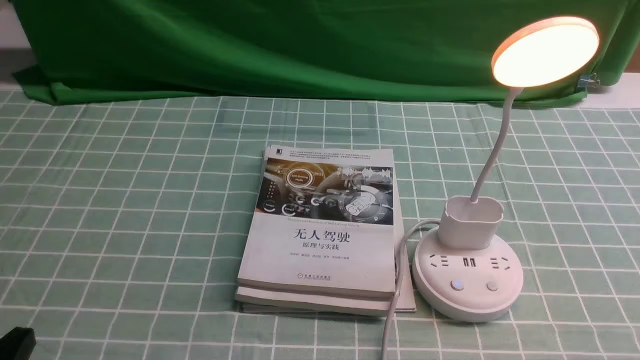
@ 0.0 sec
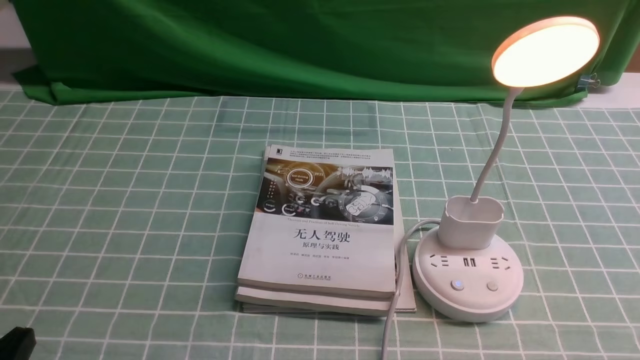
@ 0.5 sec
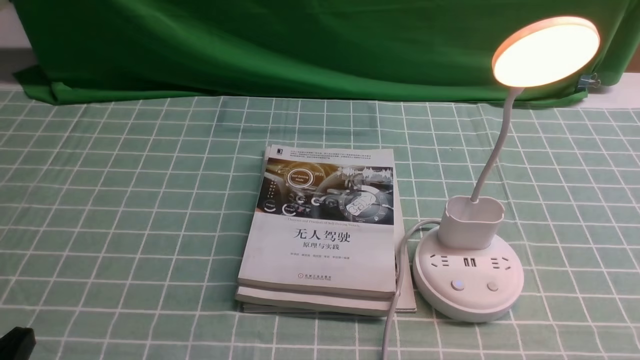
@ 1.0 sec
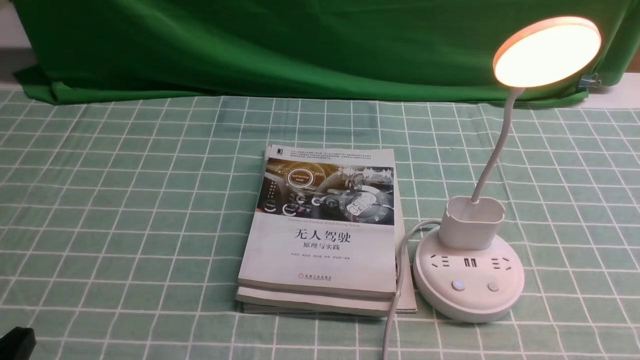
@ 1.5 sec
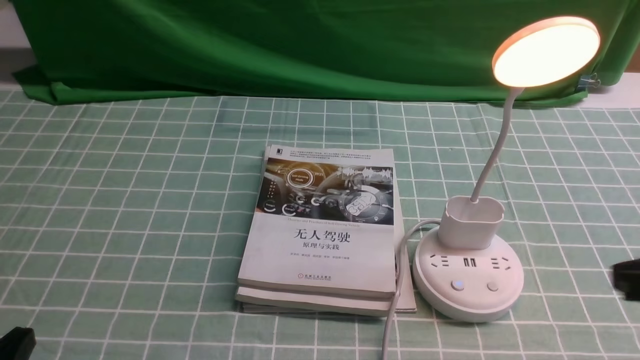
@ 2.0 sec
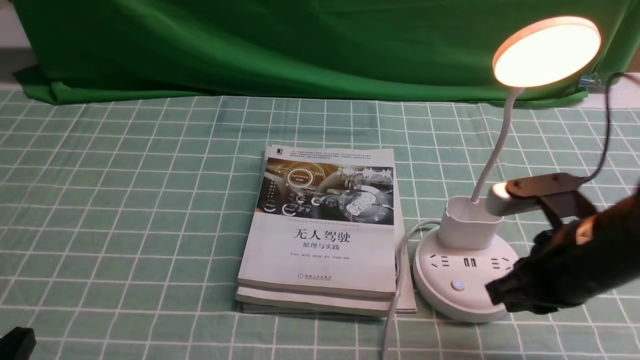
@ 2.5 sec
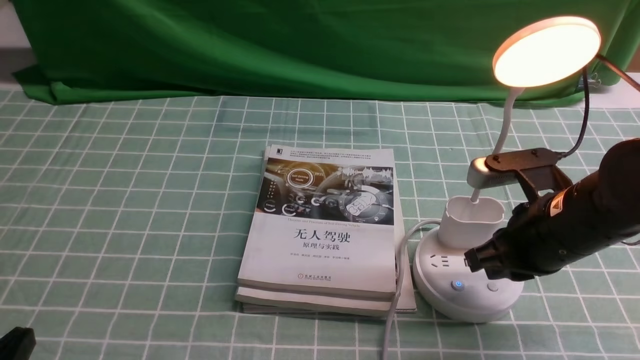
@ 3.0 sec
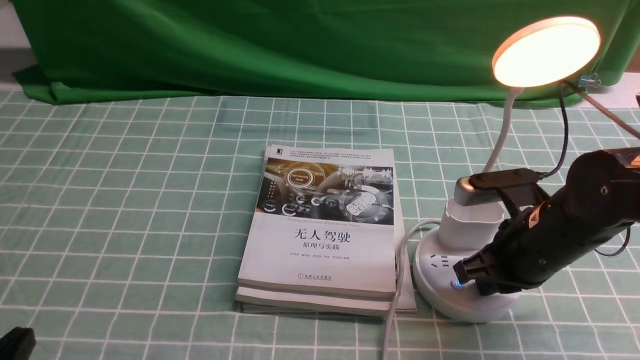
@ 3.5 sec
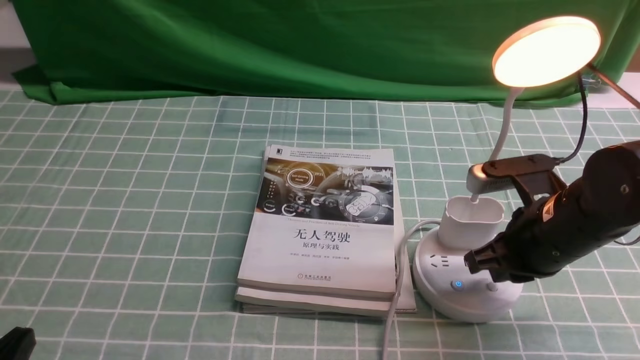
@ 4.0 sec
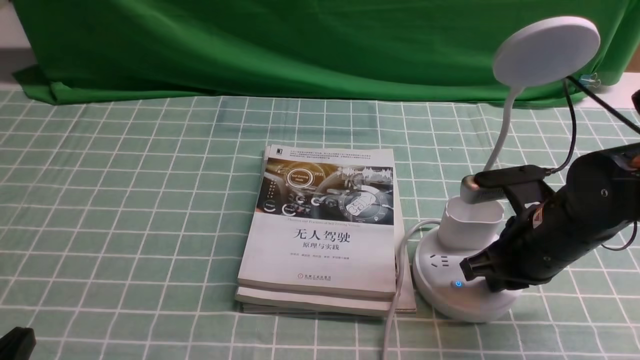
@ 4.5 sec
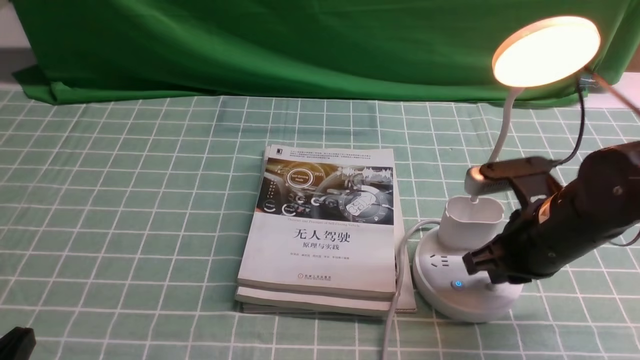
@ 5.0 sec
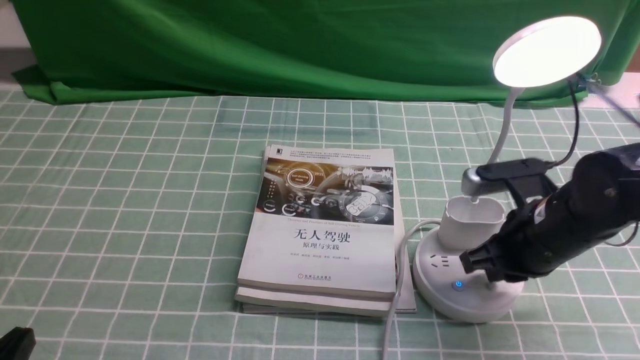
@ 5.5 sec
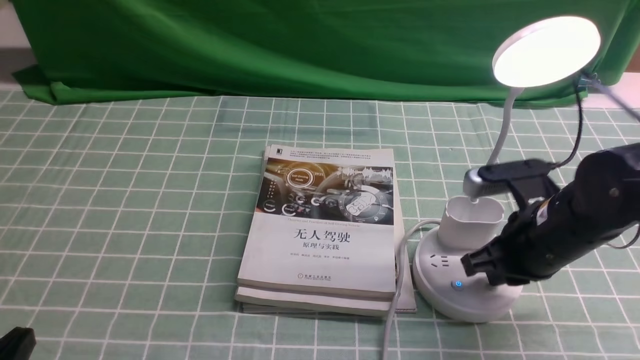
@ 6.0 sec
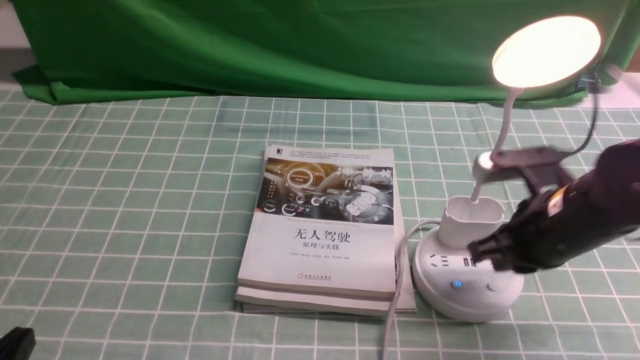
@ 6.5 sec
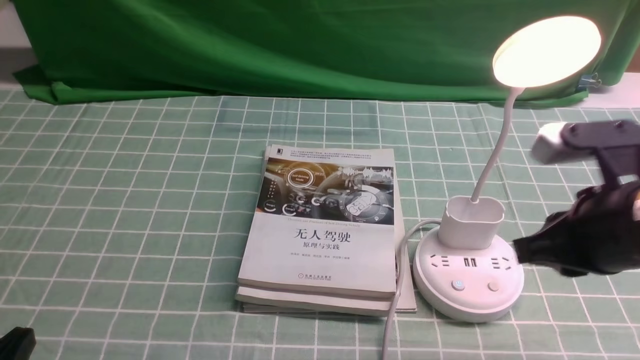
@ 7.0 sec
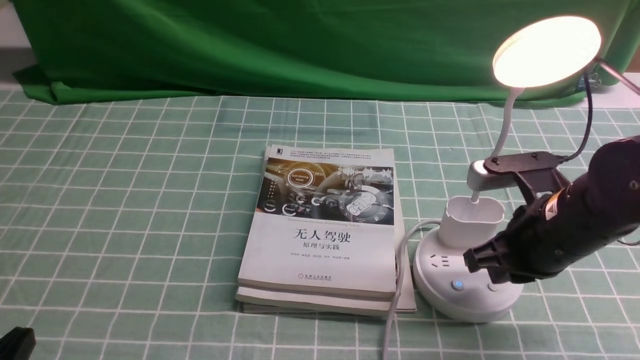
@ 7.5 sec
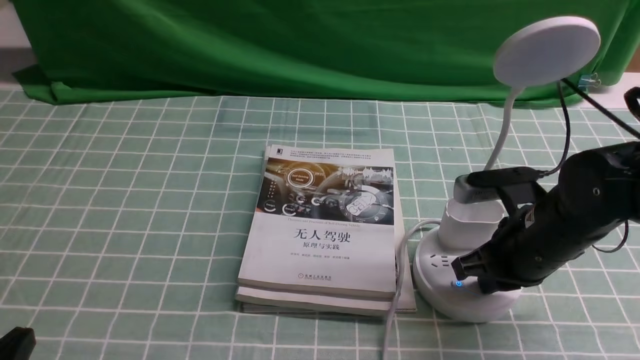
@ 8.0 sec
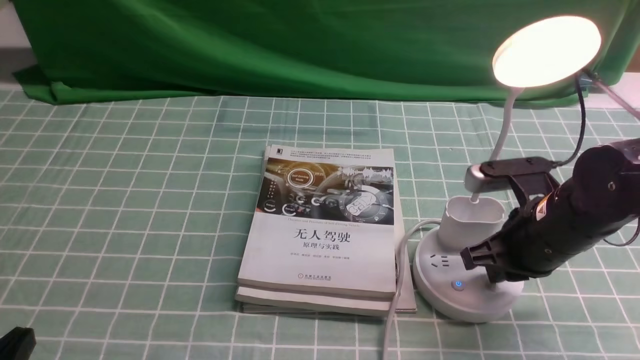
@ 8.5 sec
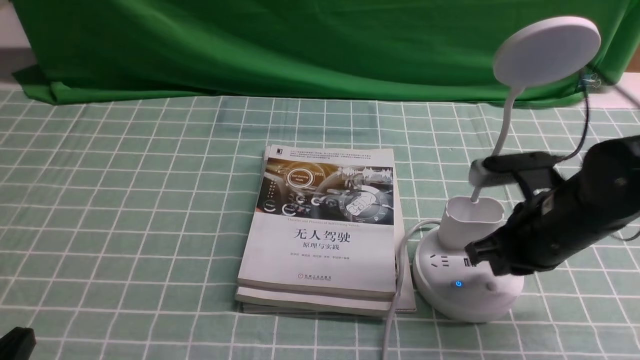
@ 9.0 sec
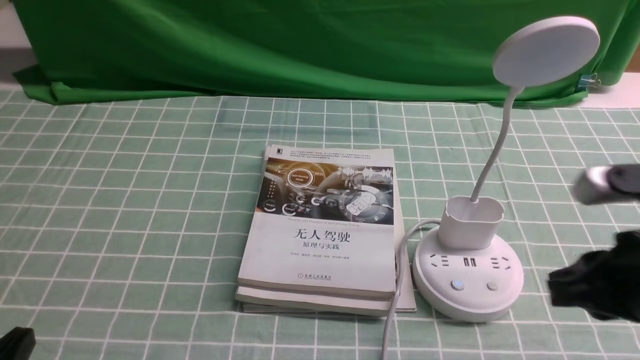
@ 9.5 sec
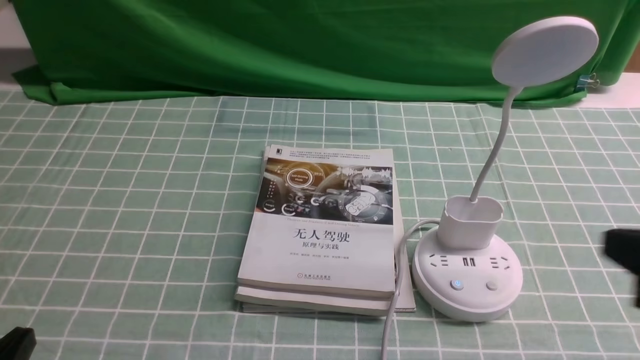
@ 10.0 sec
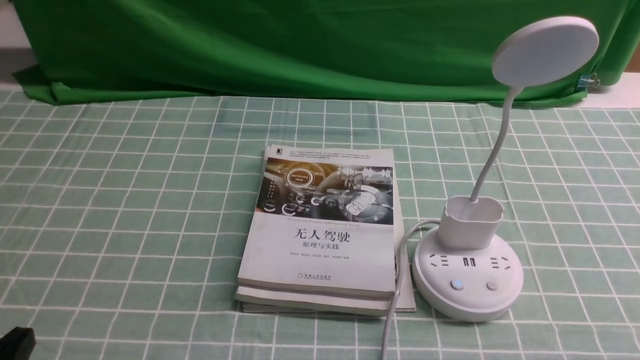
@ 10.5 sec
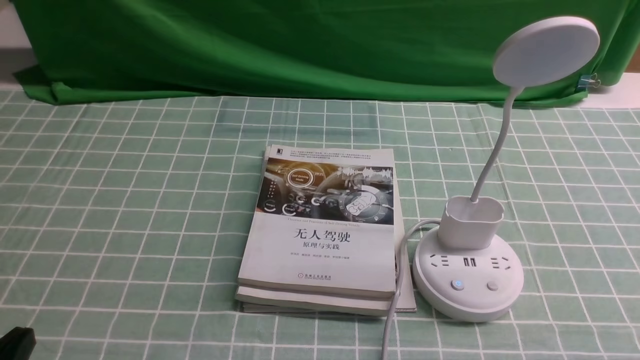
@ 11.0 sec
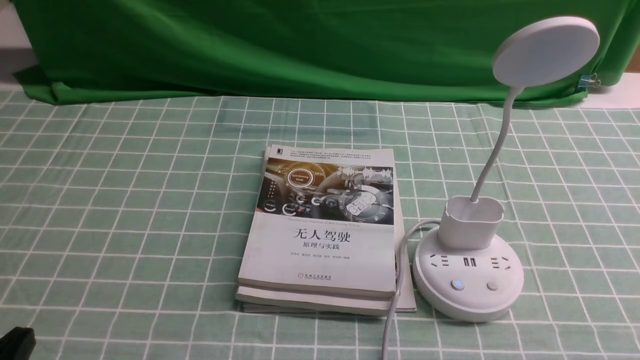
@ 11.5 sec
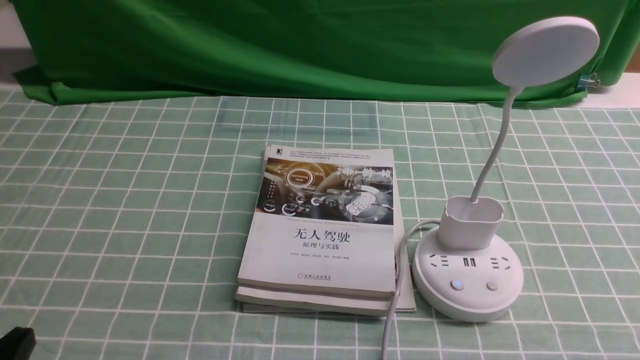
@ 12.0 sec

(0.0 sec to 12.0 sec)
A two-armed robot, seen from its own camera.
Task of the whole recording: turn off the desk lamp on the blue coffee tablecloth by hand.
Step, 0.0 sec - 9.0 sec: use the right arm to press the button switch on the lamp holder.
2.0 sec - 4.0 sec: The right gripper heads forward, downward and to the left, covering some 15 cm.
4.0 sec - 6.0 sec: Both grippers stay about where they are.
8.0 sec - 10.0 sec: The right gripper shifts some 20 cm backward, upward and to the right.
10.0 sec - 12.0 sec: The right gripper shifts approximately 10 cm downward and backward.

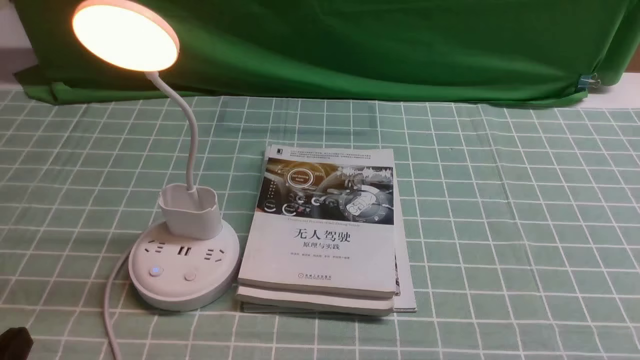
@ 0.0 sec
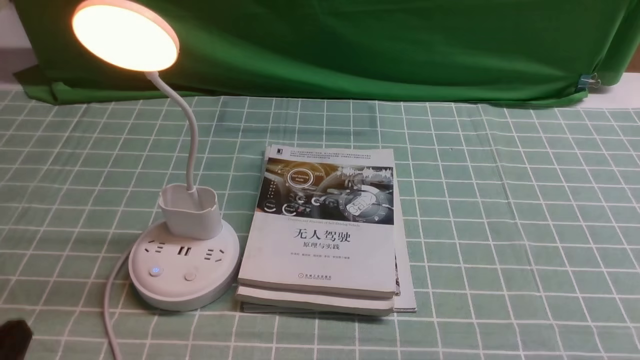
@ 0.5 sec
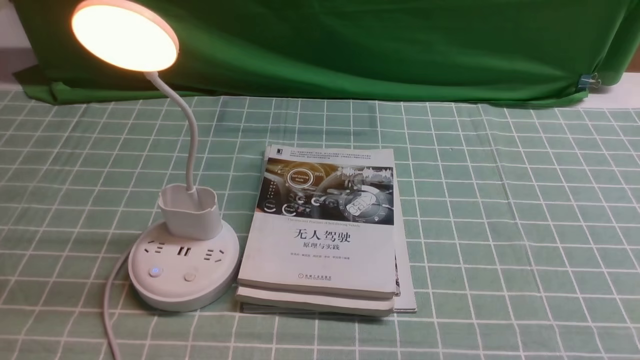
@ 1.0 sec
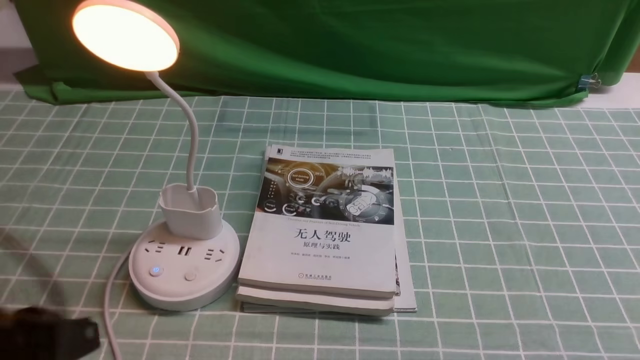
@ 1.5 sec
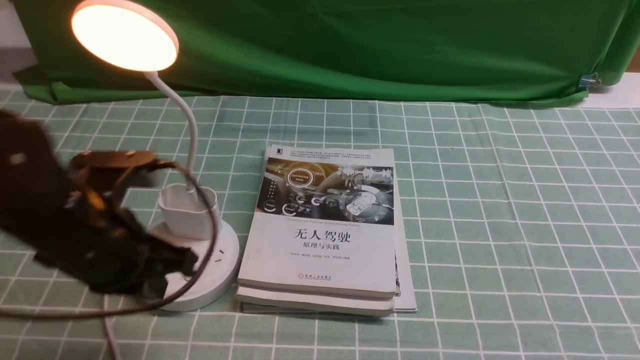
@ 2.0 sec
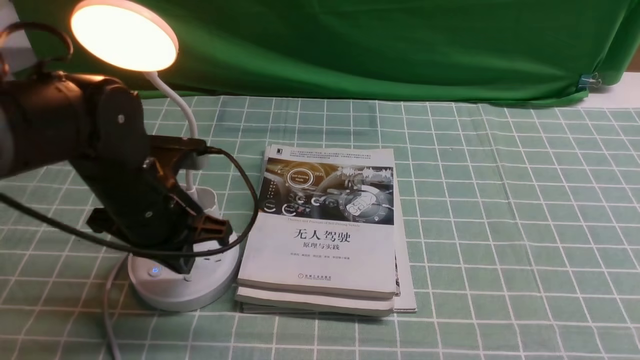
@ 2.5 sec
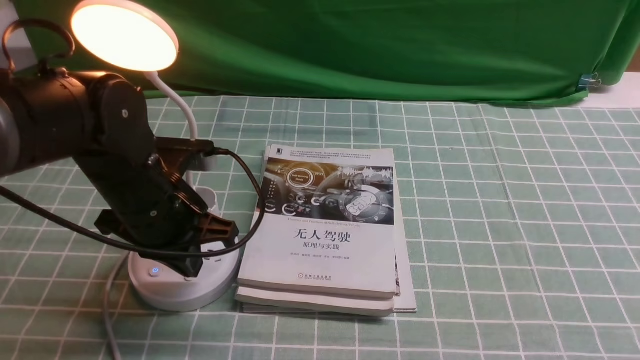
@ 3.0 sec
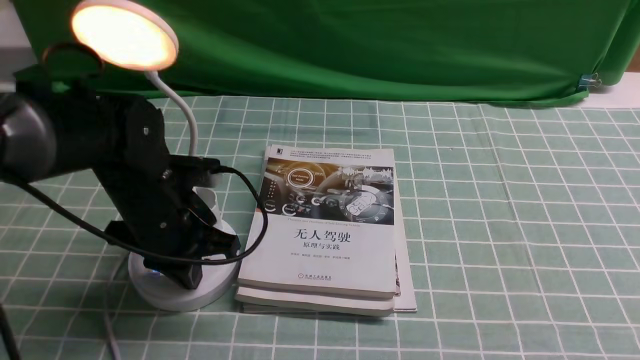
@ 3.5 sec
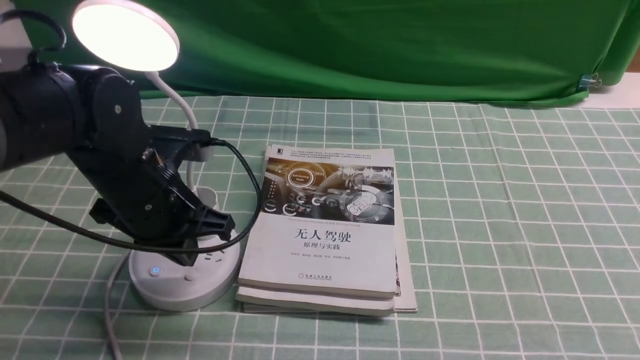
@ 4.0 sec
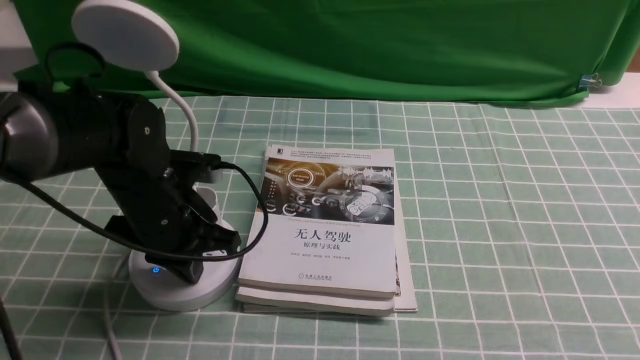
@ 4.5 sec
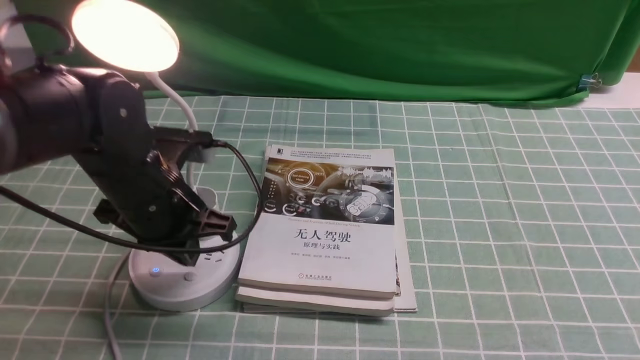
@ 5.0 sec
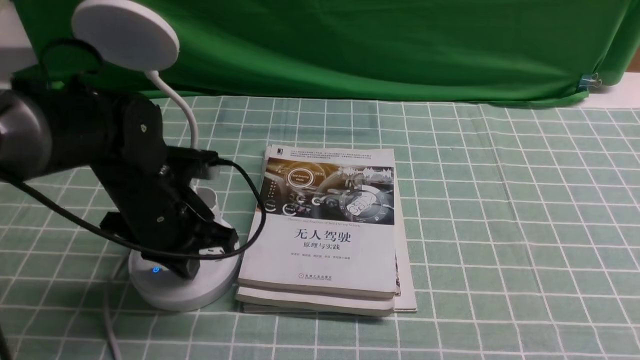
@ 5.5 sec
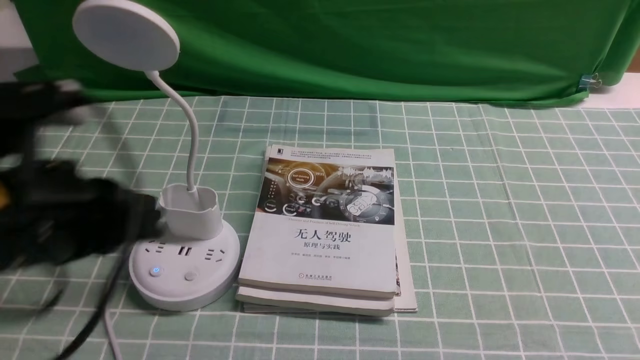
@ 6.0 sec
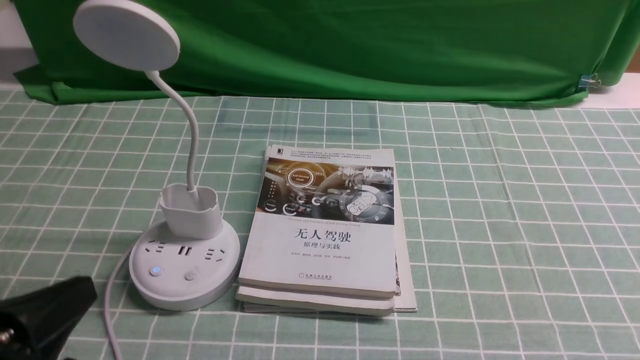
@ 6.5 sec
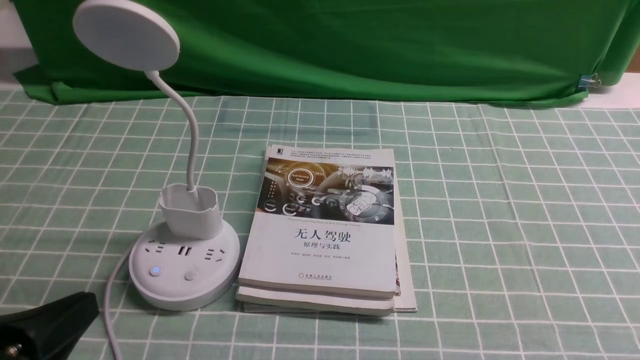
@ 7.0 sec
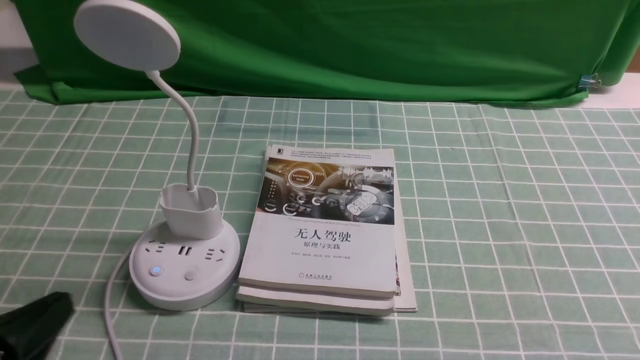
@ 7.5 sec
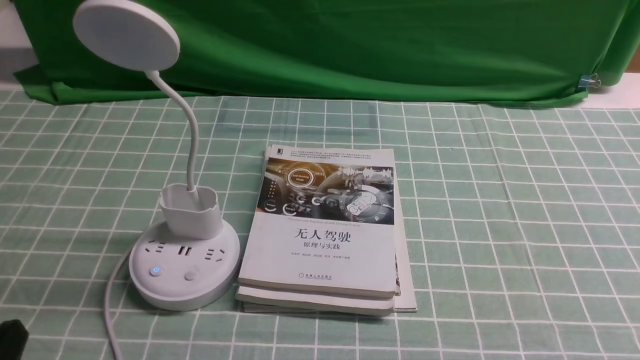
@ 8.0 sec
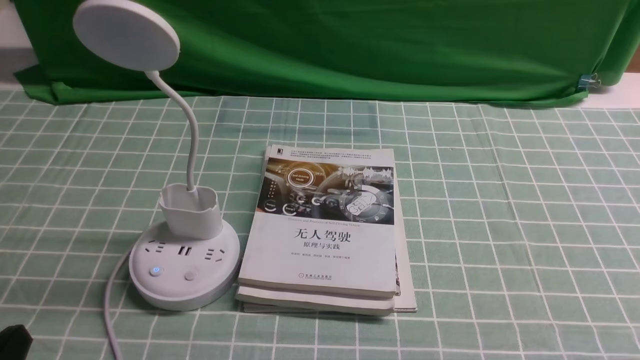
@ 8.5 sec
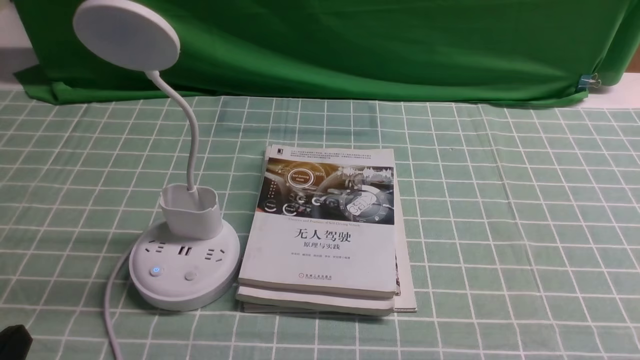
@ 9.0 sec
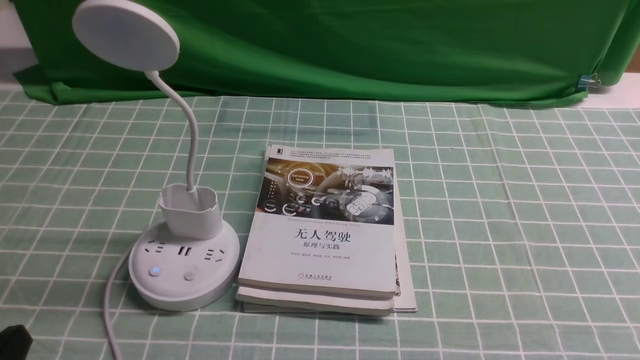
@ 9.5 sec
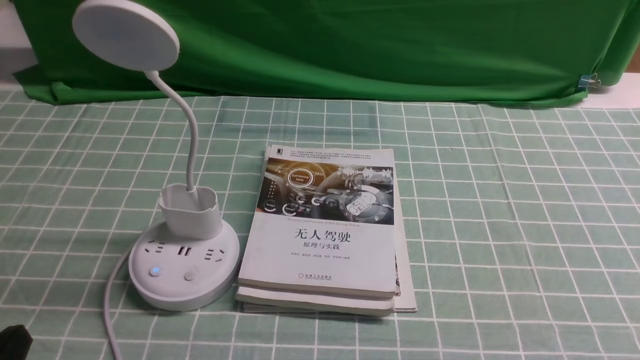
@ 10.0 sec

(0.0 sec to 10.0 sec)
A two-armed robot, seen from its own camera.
Task of the whole recording: turn off the desk lamp on the blue coffee tablecloth by hand.
Step, 0.0 sec - 5.5 sec: use the left arm to press the button switch on the lamp holder.
0.0 sec - 2.0 sec: The left gripper is displaced forward by roughly 20 cm, and closes up.
2.0 sec - 4.0 sec: The left gripper is displaced forward by roughly 5 cm, and opens its fingers.
4.0 sec - 6.0 sec: The left gripper goes approximately 15 cm backward and upward.
6.0 sec - 8.0 sec: The left gripper moves downward, backward and to the left, about 20 cm.
8.0 sec - 10.0 sec: Both grippers stay about where they are.
